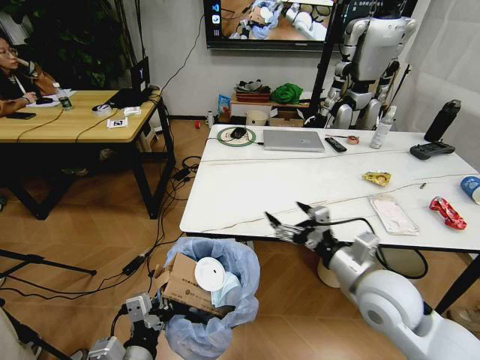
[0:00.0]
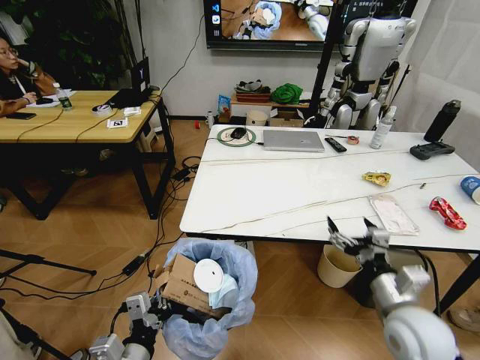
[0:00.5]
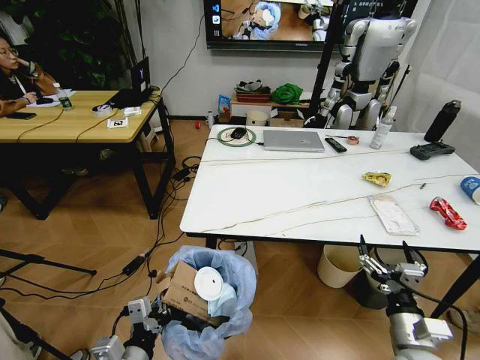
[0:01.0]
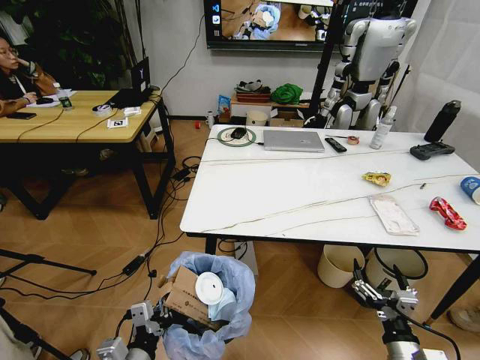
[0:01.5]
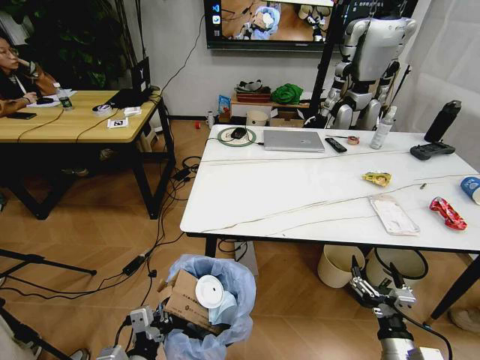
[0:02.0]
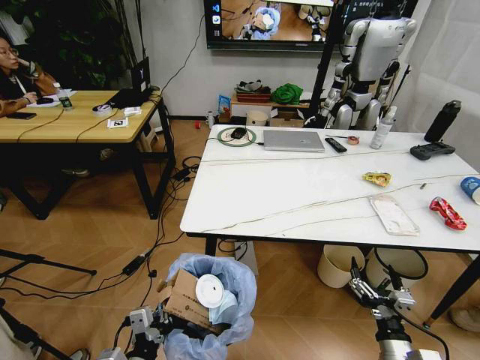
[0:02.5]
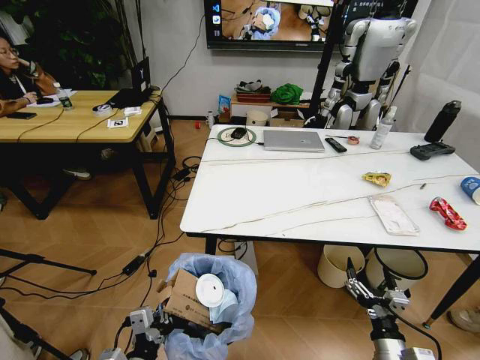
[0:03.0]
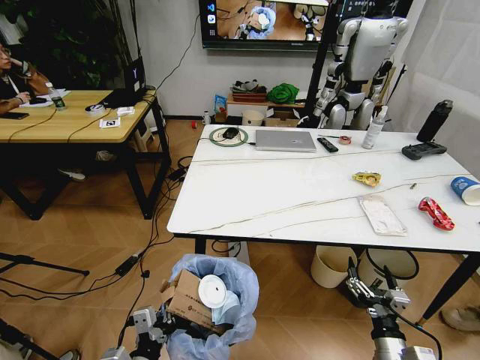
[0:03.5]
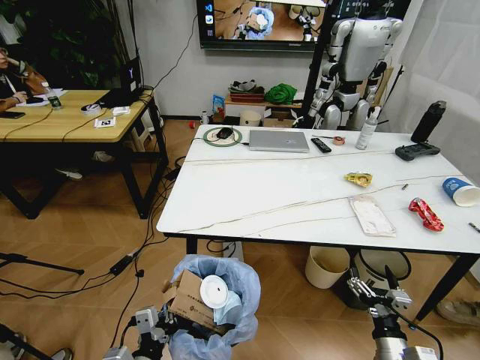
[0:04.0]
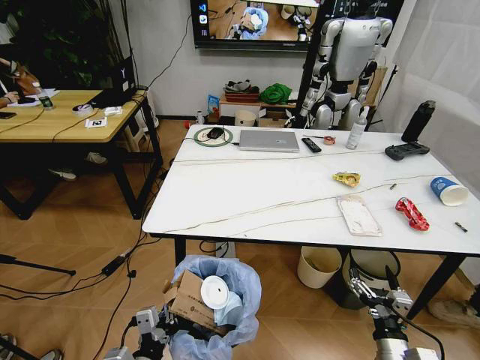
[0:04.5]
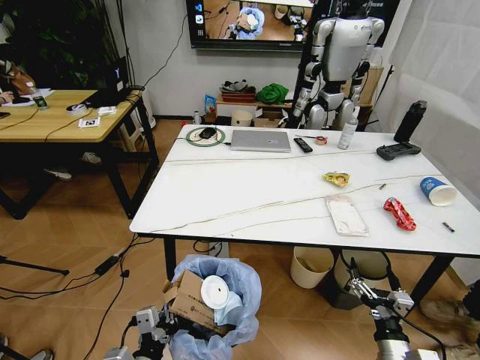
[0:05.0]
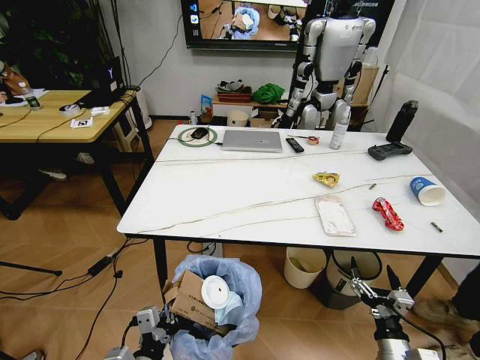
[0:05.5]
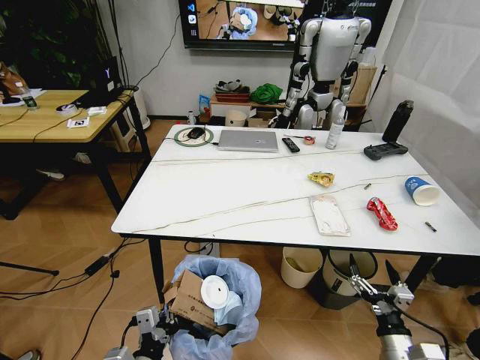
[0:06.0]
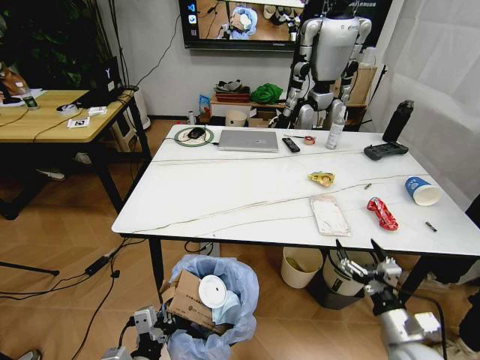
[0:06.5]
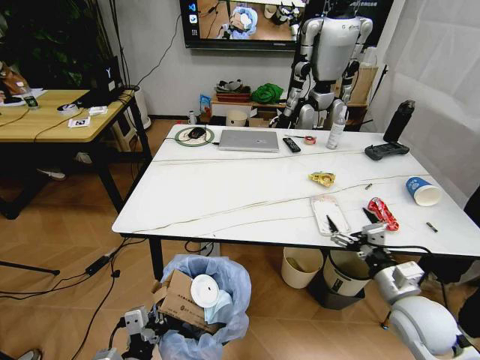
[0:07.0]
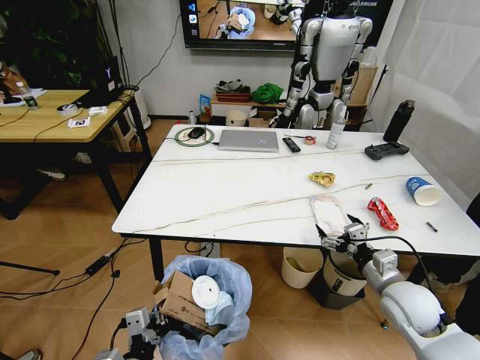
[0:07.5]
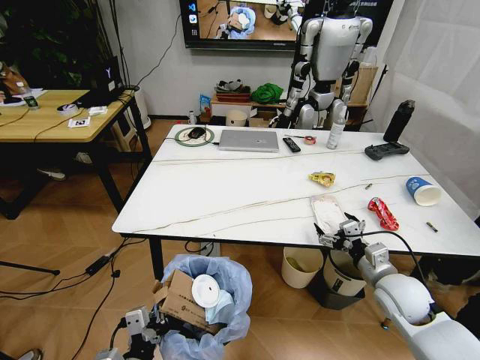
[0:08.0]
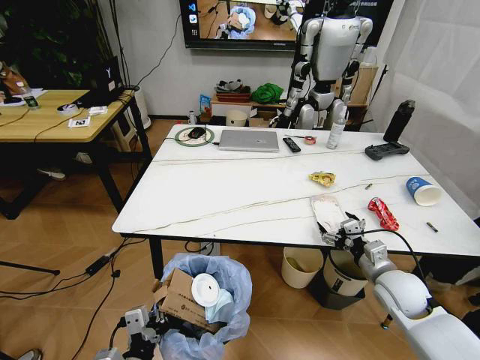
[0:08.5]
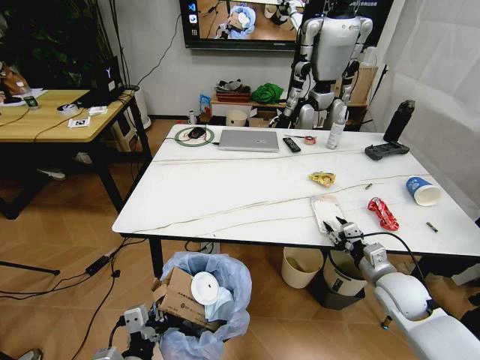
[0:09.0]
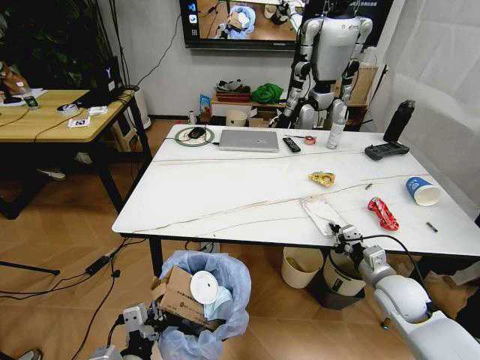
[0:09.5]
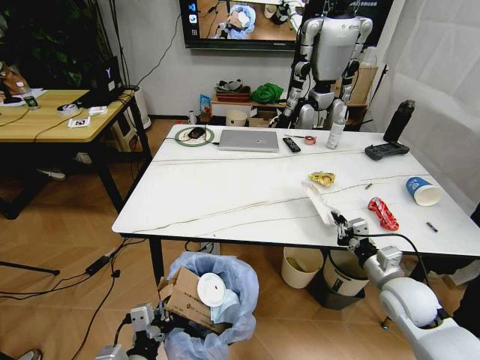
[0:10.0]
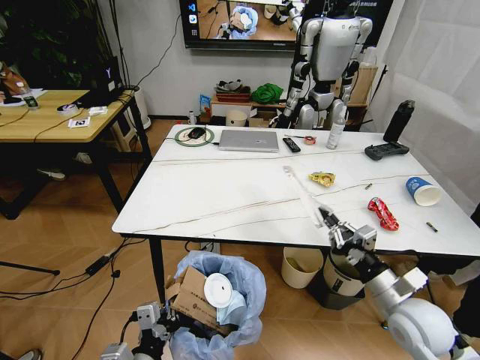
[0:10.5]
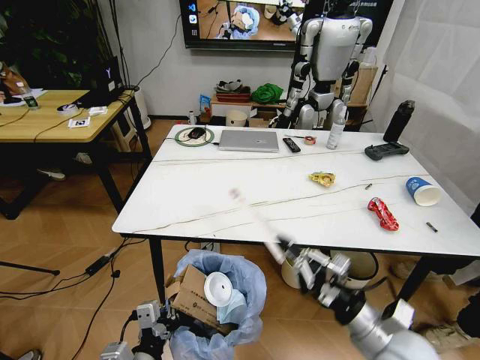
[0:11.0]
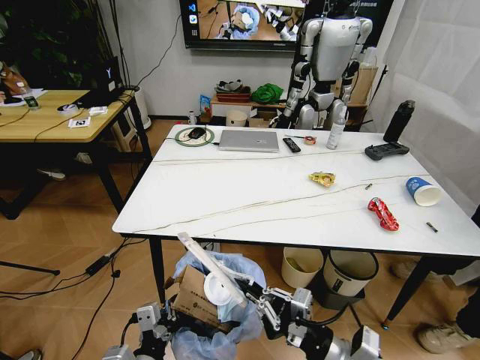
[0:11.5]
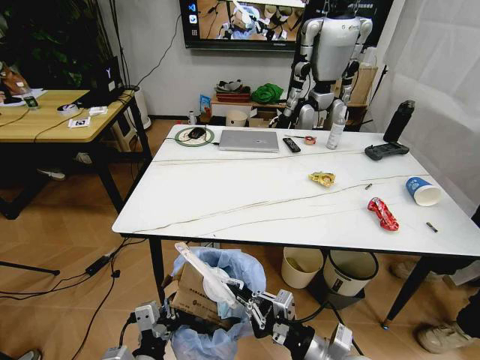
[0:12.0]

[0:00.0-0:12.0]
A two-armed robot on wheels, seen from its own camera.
Task of the whole recording: Pick up the trash bin and place the trash from the table into it.
0:00.0 to 0:02.0: The right gripper heads downward, backward and to the right, covering roughly 25 cm; the left gripper moves downward, some 5 cm.
0:06.0 to 0:08.0: The right gripper shifts roughly 20 cm forward and upward.
0:08.0 to 0:10.0: The right gripper closes its fingers.
0:10.0 to 0:12.0: The right gripper heads to the left and backward, covering about 20 cm.

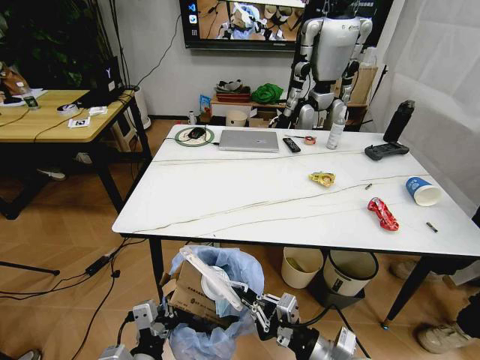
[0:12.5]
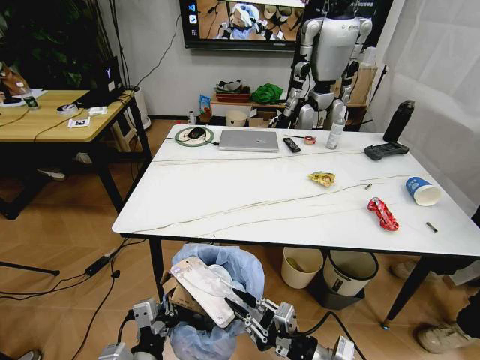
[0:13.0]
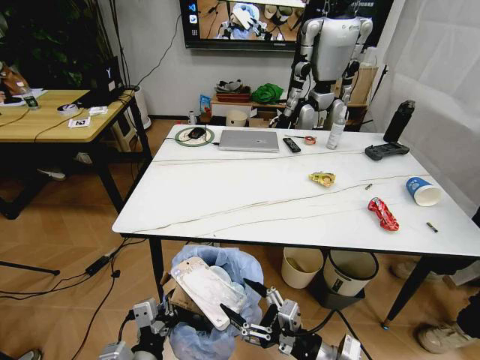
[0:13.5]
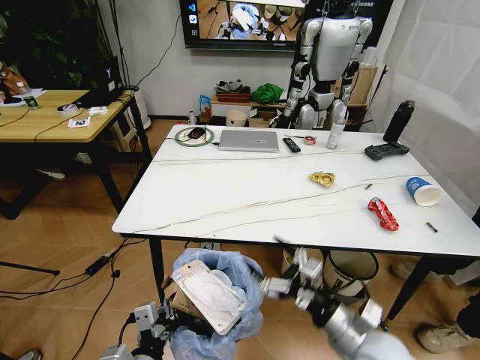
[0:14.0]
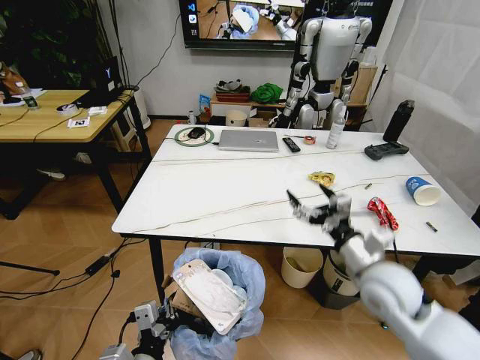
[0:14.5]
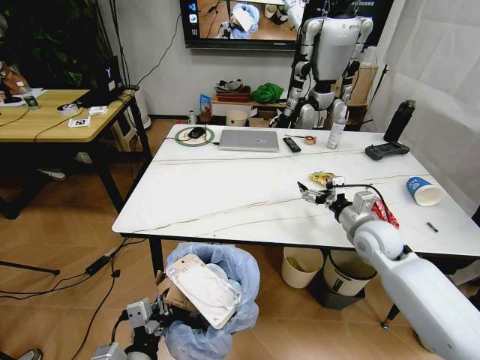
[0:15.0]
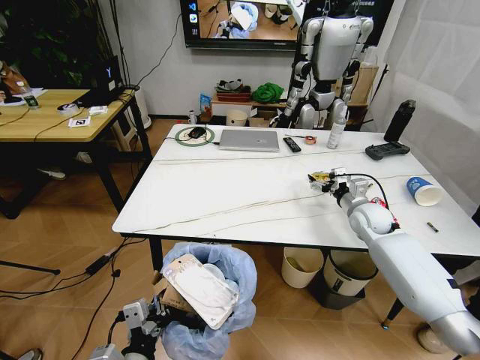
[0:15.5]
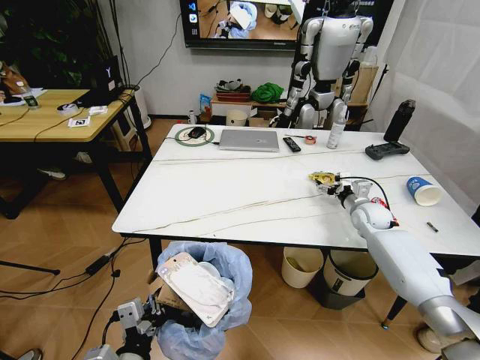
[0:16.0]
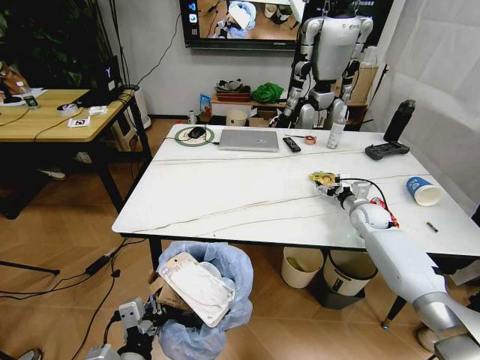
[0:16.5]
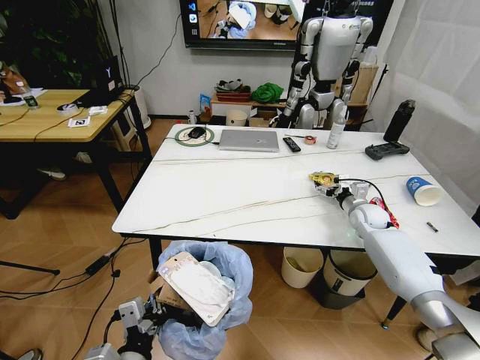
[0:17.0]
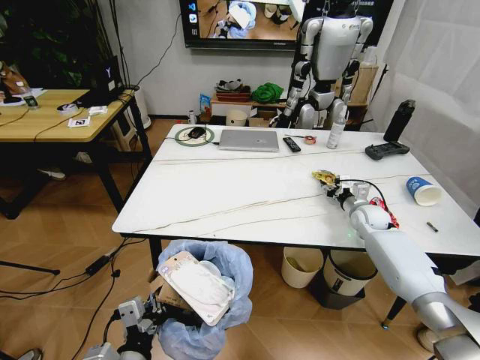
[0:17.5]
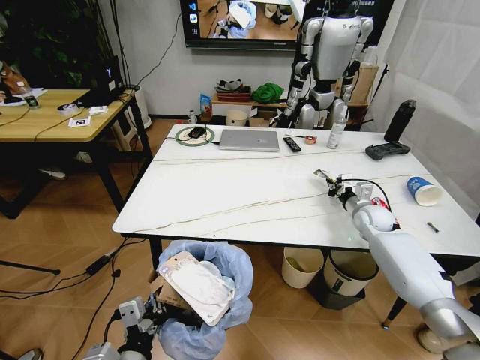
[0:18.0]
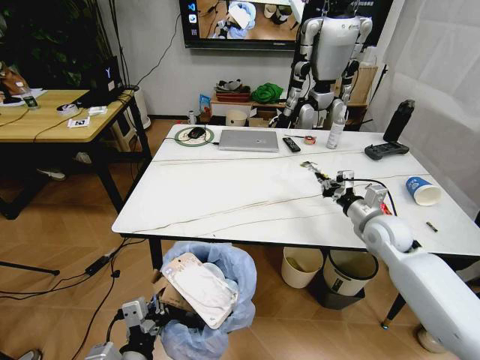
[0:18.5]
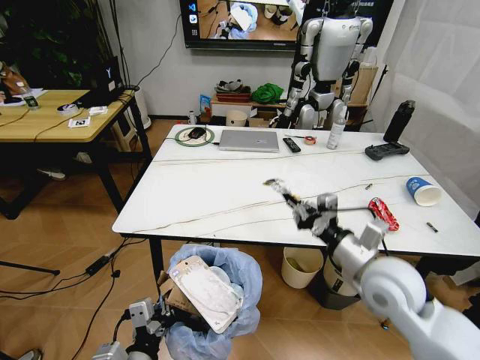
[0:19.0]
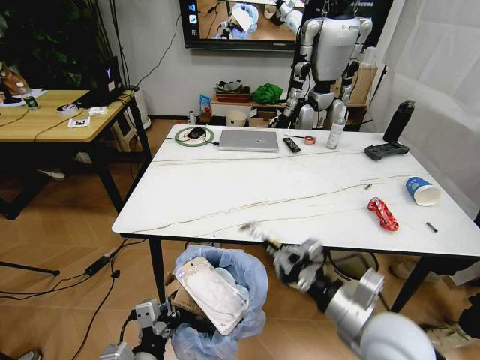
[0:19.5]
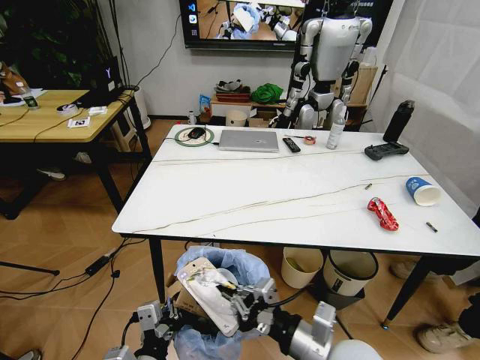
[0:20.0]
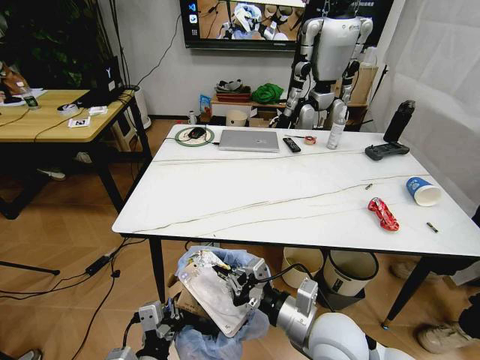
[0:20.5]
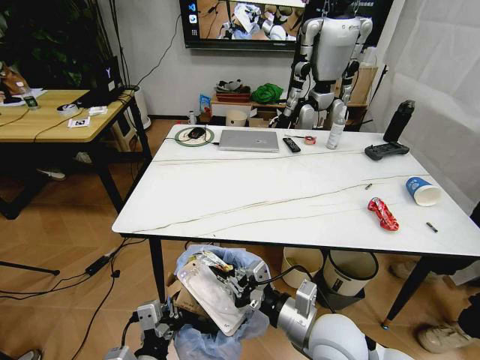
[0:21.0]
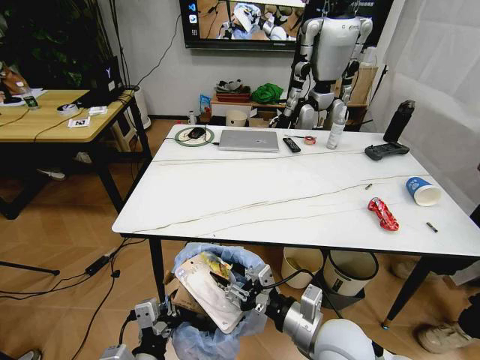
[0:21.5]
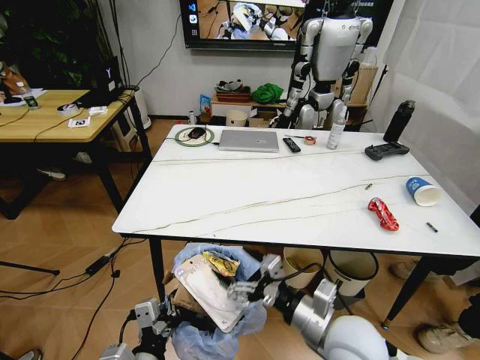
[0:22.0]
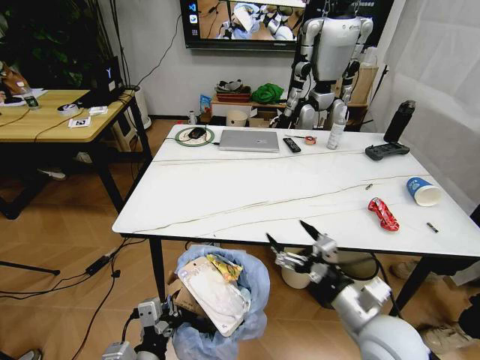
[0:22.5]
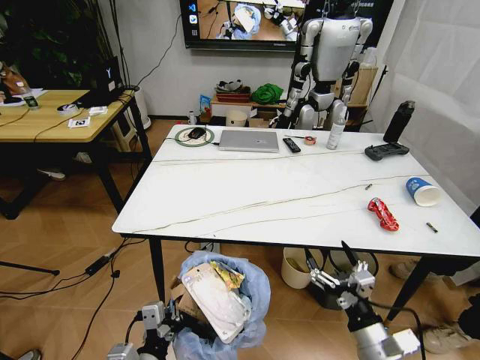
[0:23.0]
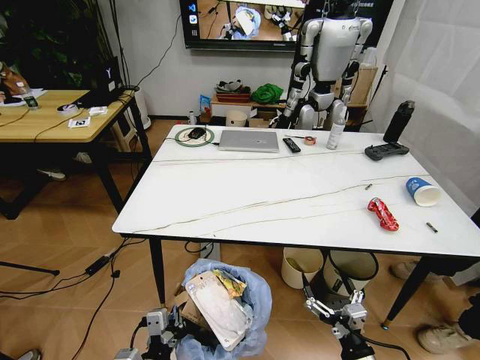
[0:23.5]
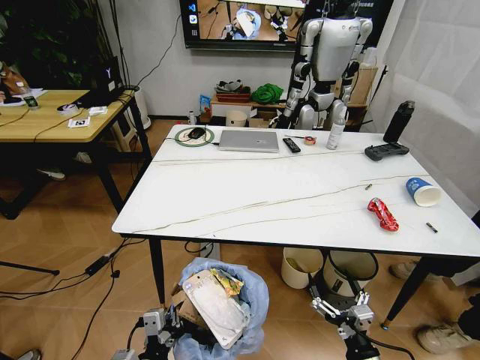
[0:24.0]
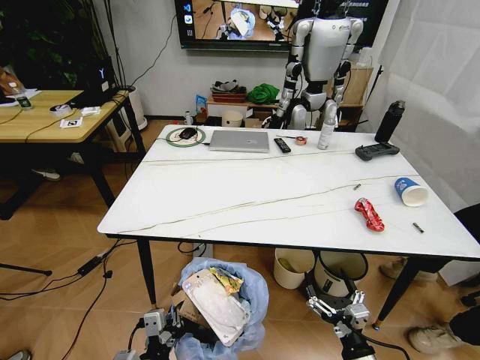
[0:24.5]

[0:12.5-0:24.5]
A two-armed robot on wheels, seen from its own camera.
Task of the whole recording: Pick up the trash bin and place the trash from the table into it.
0:12.5 to 0:14.5: The right gripper heads forward, upward and to the right, covering about 15 cm, and opens its fingers.
0:14.5 to 0:16.5: The right gripper shifts approximately 30 cm forward and to the right.
0:16.5 to 0:18.5: The right gripper heads backward and upward, covering about 15 cm, and closes its fingers.
0:18.5 to 0:20.5: The right gripper moves backward and to the left, some 30 cm.
0:20.5 to 0:22.5: The right gripper goes some 10 cm to the right, and opens its fingers.
0:22.5 to 0:24.5: The right gripper shifts approximately 15 cm downward and backward.

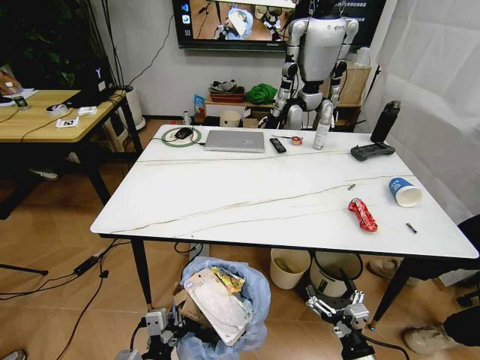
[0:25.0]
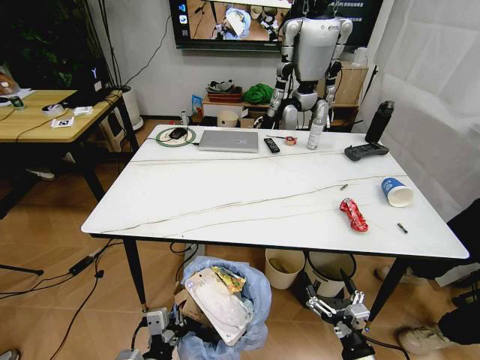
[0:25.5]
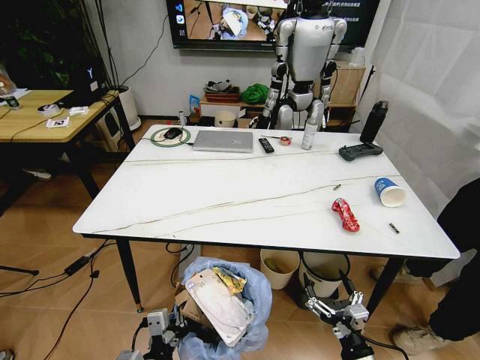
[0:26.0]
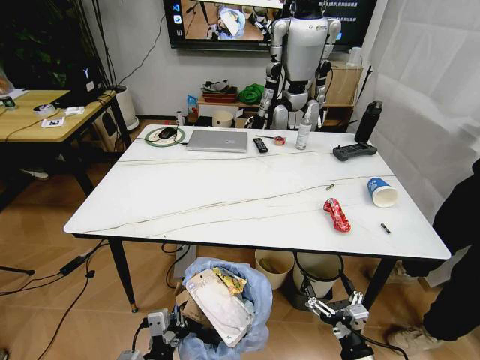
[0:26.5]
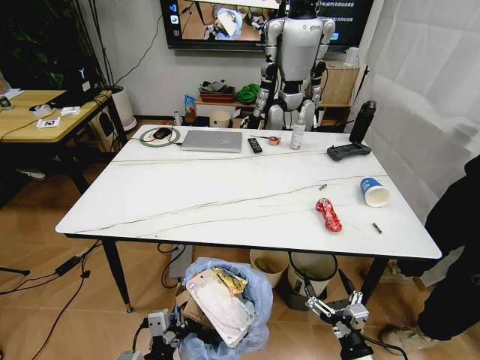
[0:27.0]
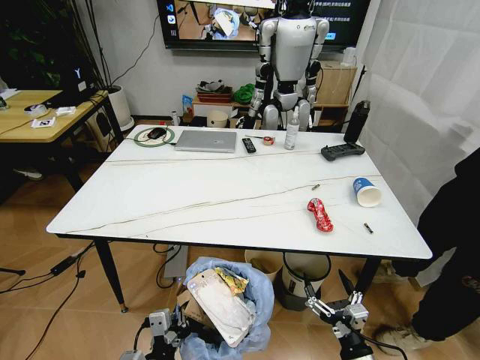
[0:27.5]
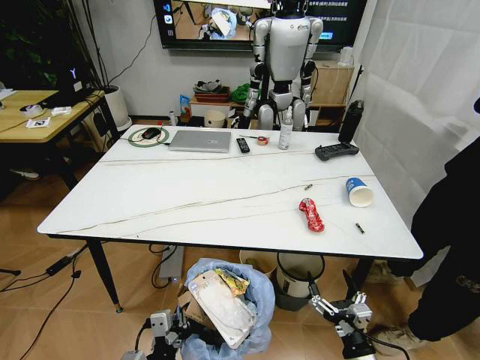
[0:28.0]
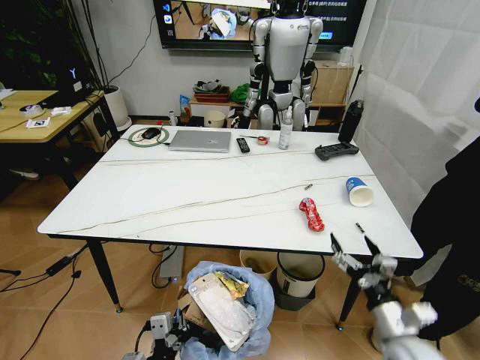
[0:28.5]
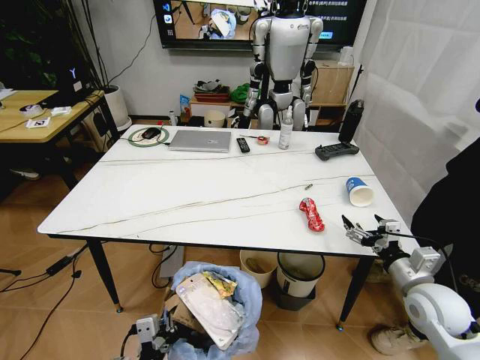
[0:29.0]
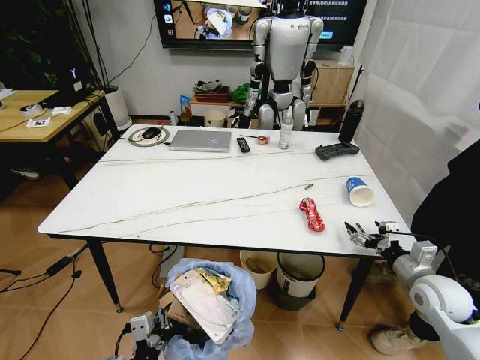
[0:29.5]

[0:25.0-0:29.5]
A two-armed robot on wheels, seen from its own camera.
Task of the whole recording: Pick up the trash bin and place the trash from the table into it.
0:27.0 to 0:29.5: The right gripper moves forward, to the right and upward, some 25 cm.
